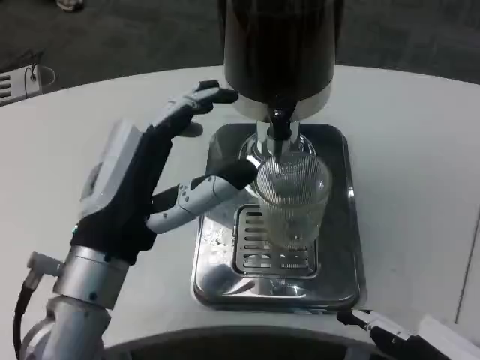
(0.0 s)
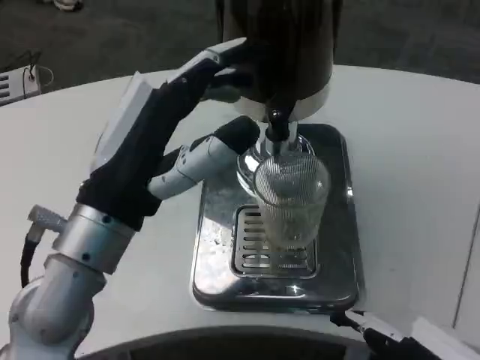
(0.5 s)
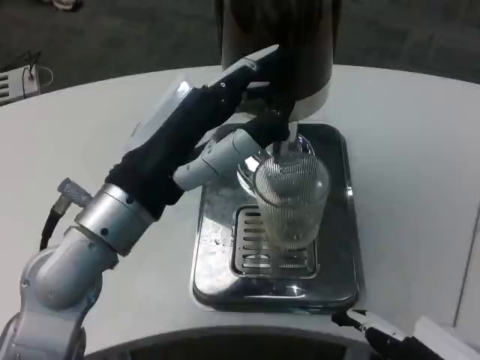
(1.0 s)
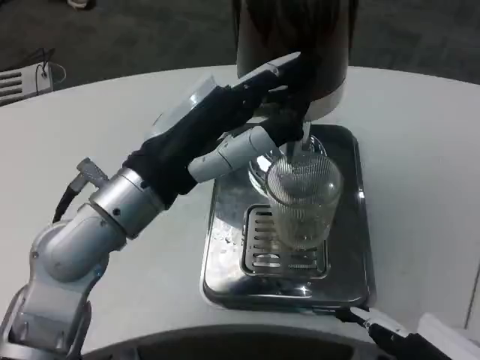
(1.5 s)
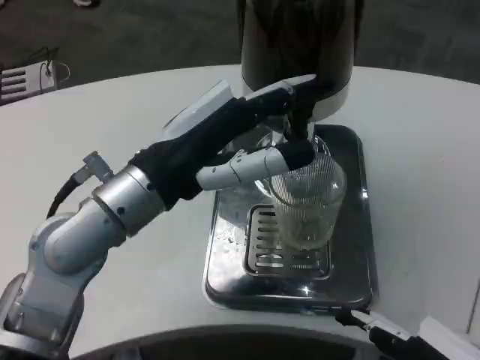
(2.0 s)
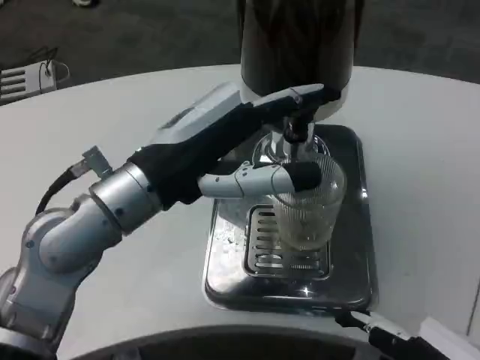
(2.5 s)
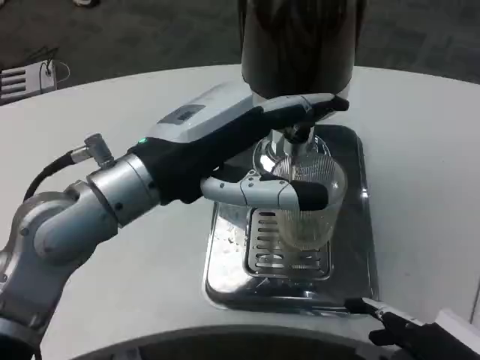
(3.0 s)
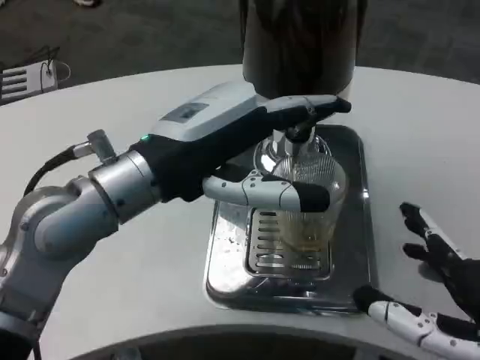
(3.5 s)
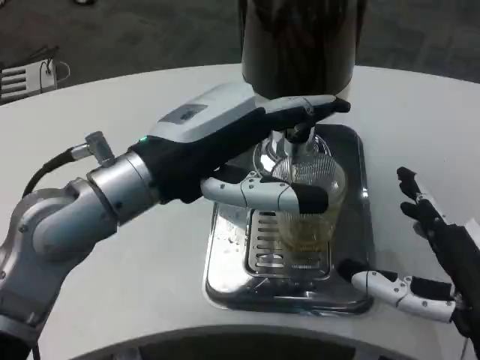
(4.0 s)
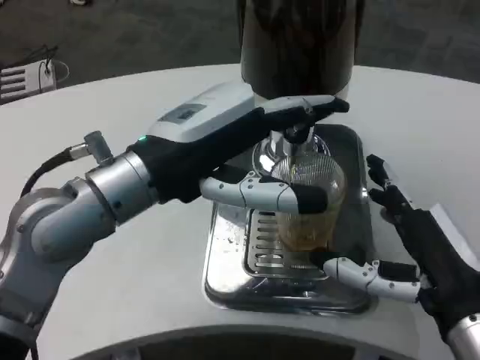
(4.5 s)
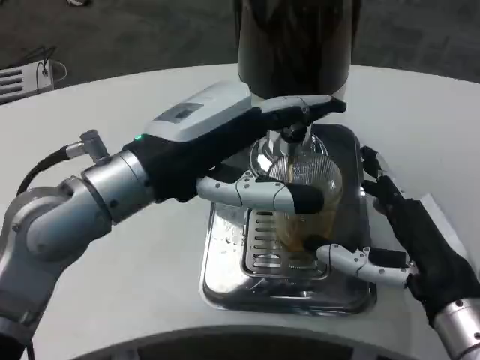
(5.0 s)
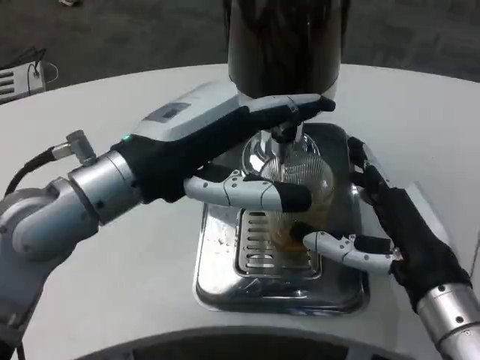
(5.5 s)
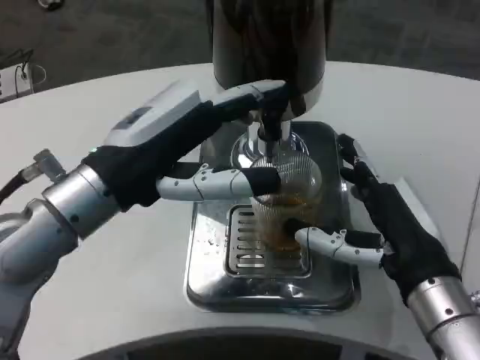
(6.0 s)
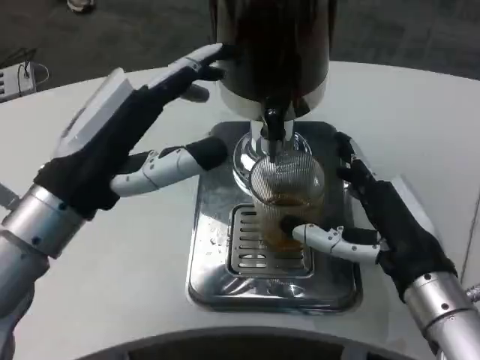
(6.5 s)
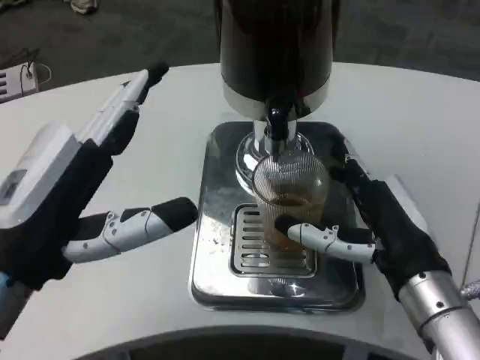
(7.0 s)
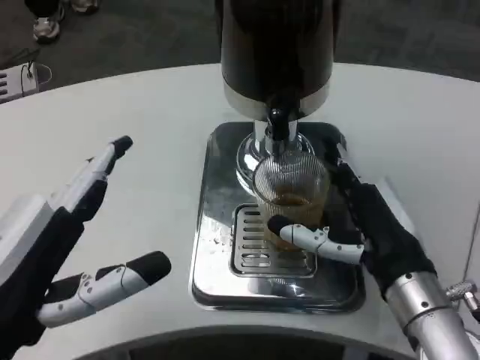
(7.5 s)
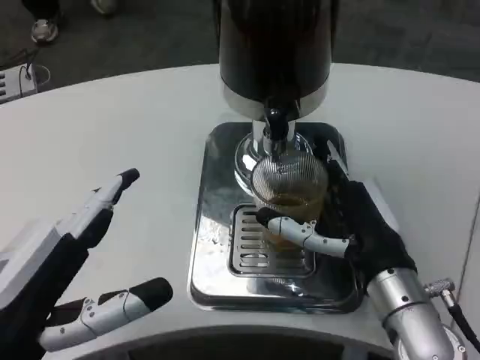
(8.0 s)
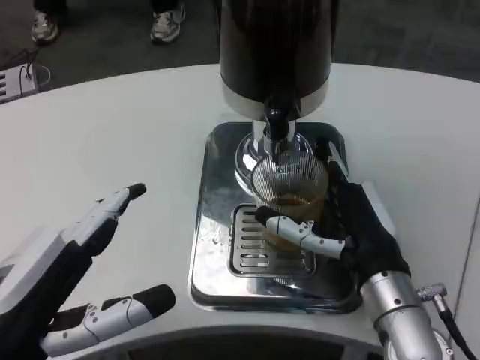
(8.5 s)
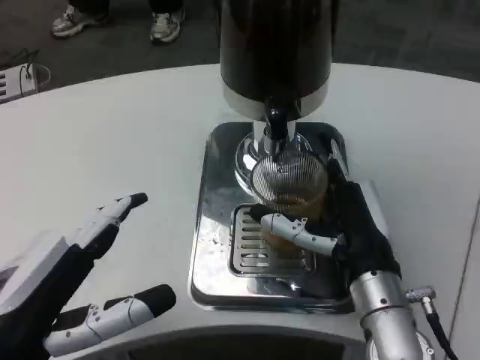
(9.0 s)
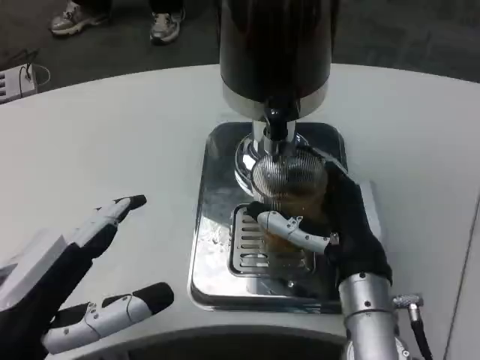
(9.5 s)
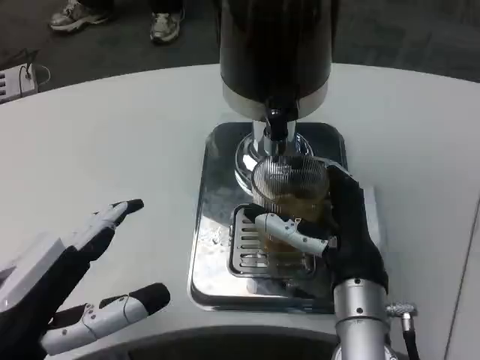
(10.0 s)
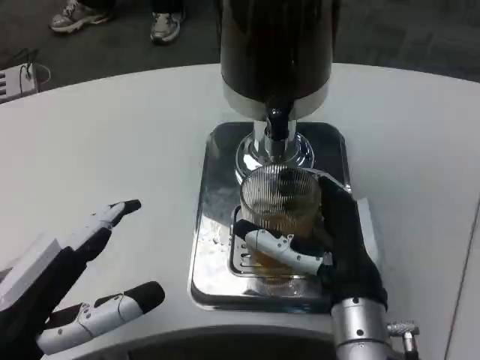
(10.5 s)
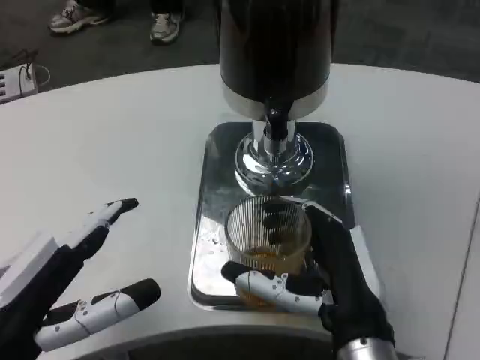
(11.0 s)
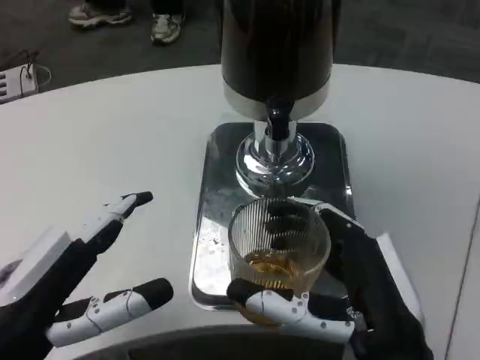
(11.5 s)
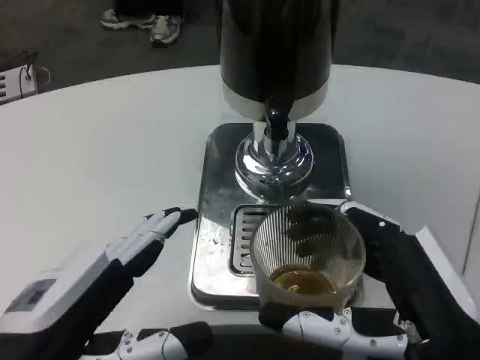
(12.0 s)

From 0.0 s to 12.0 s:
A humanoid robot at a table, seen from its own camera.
Task of the whole recording: Grasp the cup under the faucet to collect the drink, then remove the cup.
From 0.0 s to 2.0 s: The left hand heads upward, covering approximately 5 cm.
From 2.0 s to 4.0 s: The right hand is displaced forward by approximately 5 cm.
From 4.0 s to 6.0 s: The right hand is displaced forward by roughly 5 cm.
From 6.0 s to 8.0 s: The left hand heads backward and downward, covering approximately 15 cm.
From 8.0 s to 10.0 s: The right hand travels to the left by approximately 5 cm.
From 10.0 s to 12.0 s: The right hand shifts about 15 cm backward and to the right.

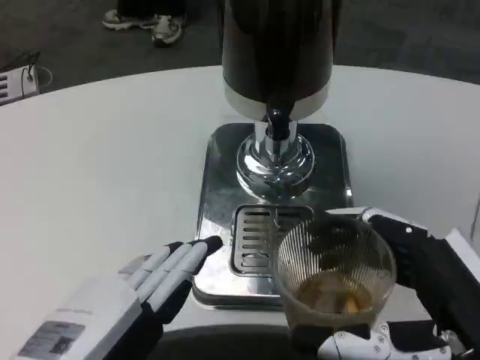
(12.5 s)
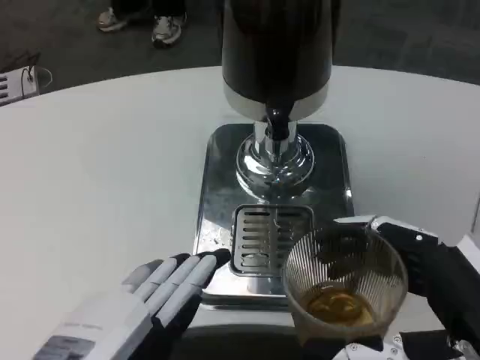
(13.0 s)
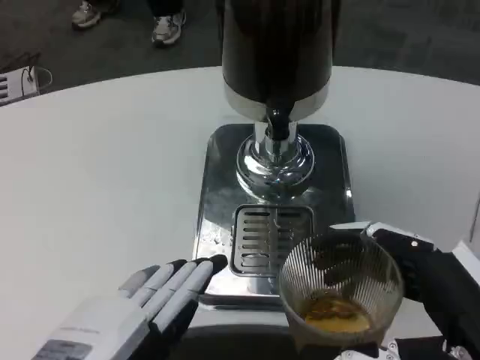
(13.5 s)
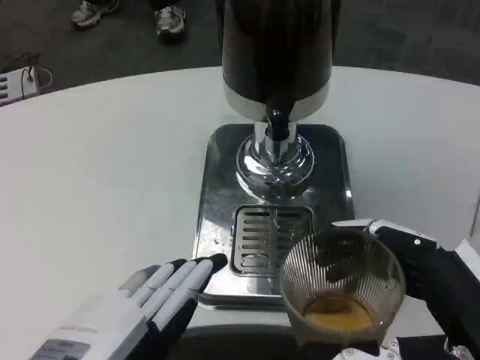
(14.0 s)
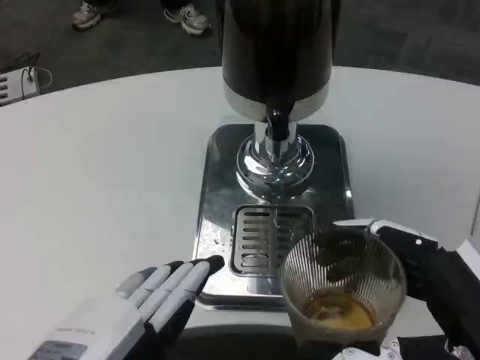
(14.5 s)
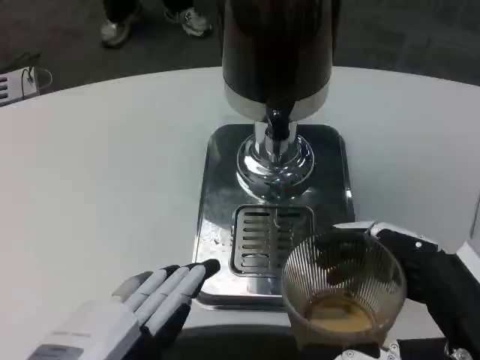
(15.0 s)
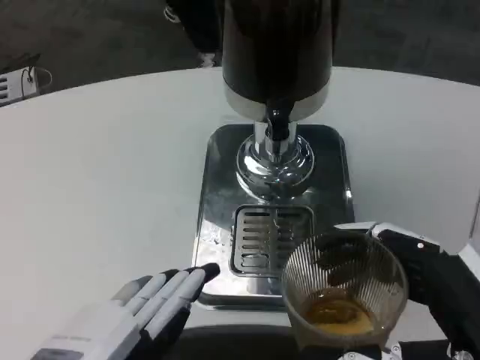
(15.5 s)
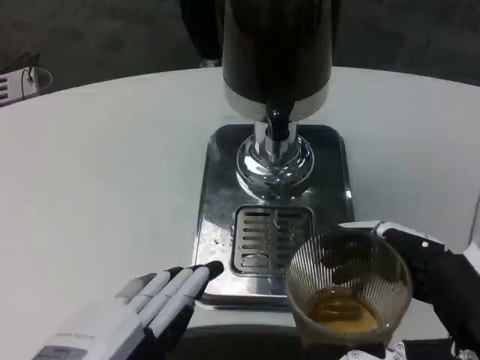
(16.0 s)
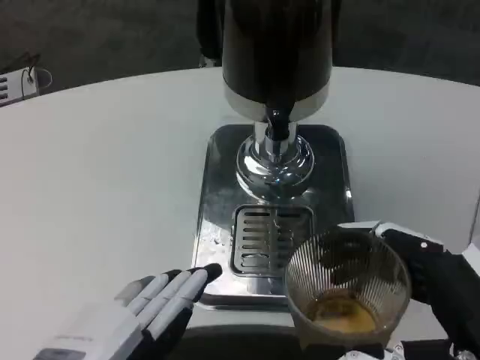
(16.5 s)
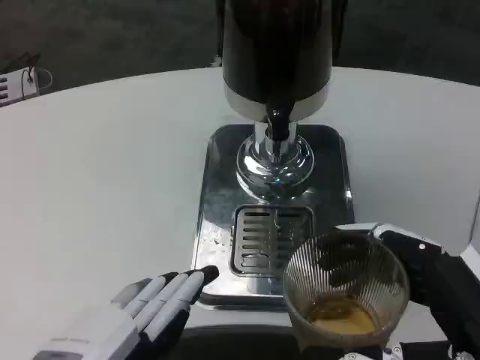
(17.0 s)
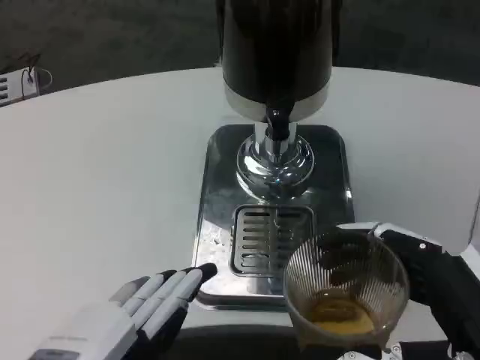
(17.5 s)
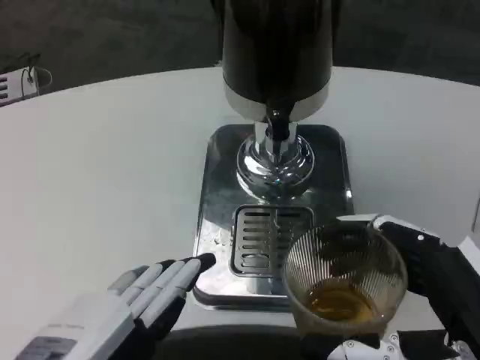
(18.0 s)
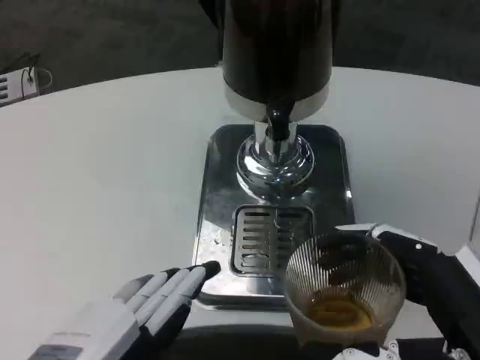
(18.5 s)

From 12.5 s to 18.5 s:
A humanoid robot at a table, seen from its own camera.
Task of the whole recording: Grasp the cup under the faucet to collect the drink, then remove the cup.
From 12.5 s to 14.5 s: There are only small adjustments of the hands.
From 14.5 s to 18.5 s: Both hands stay about where they are.

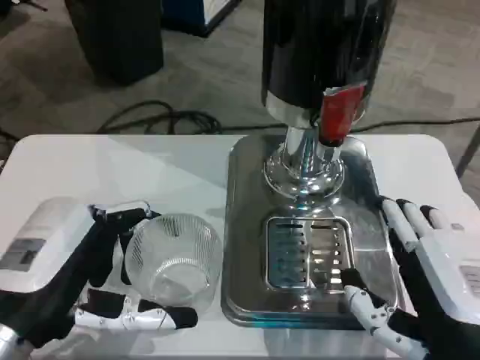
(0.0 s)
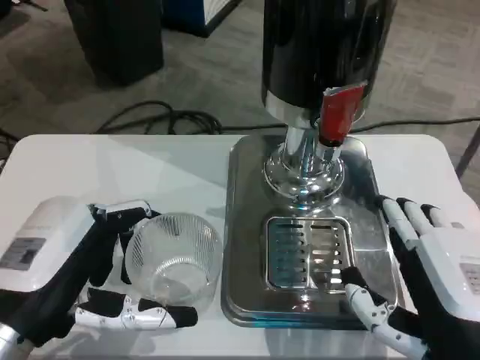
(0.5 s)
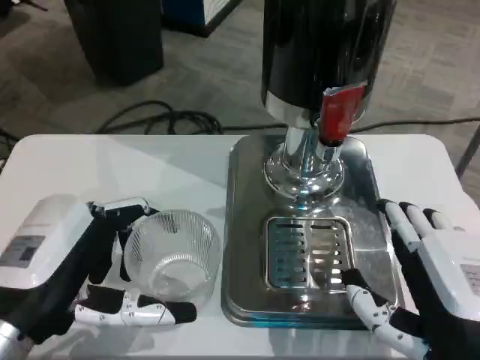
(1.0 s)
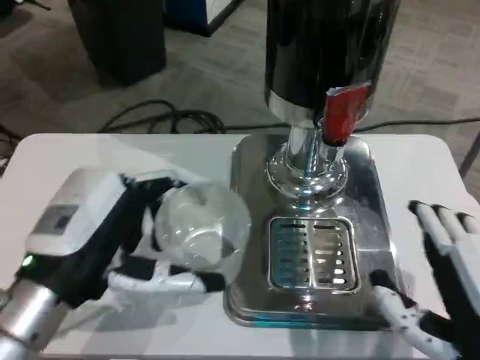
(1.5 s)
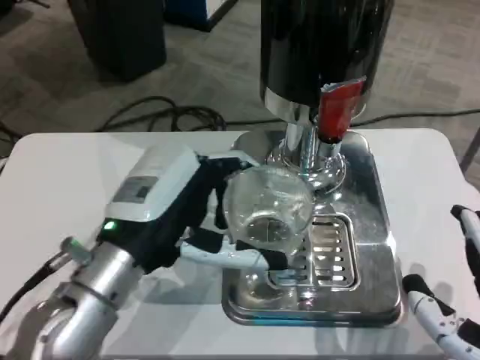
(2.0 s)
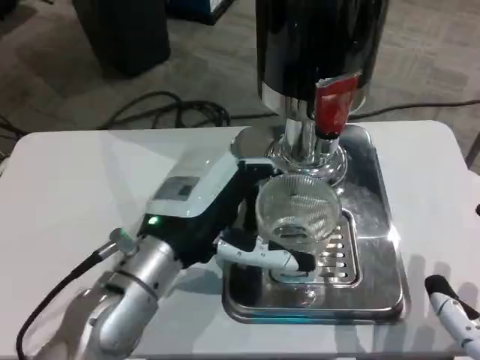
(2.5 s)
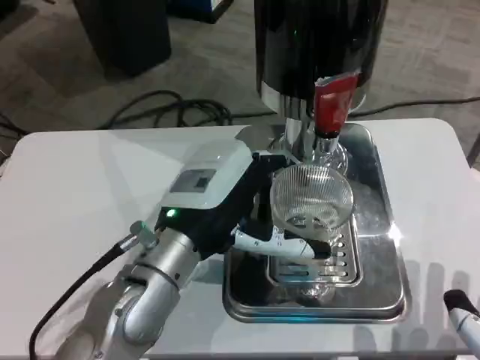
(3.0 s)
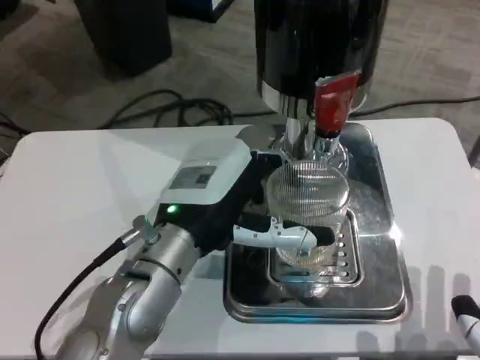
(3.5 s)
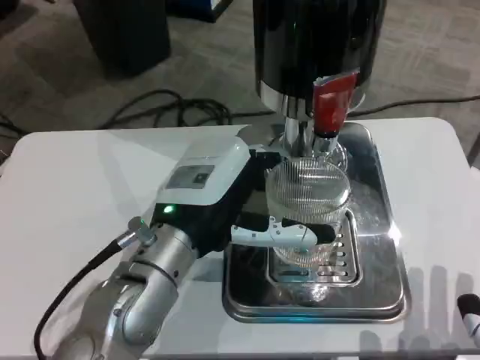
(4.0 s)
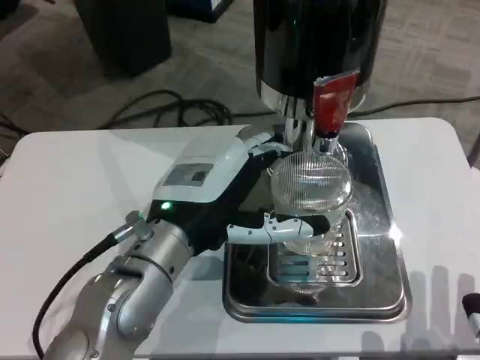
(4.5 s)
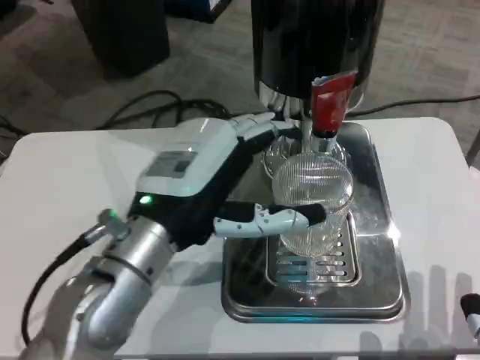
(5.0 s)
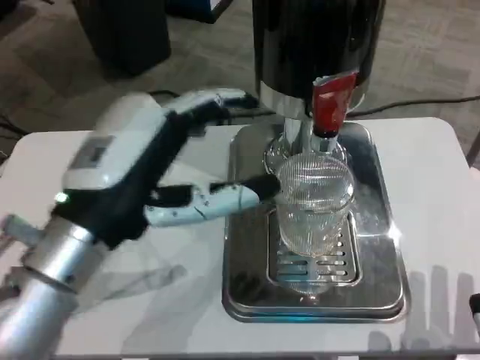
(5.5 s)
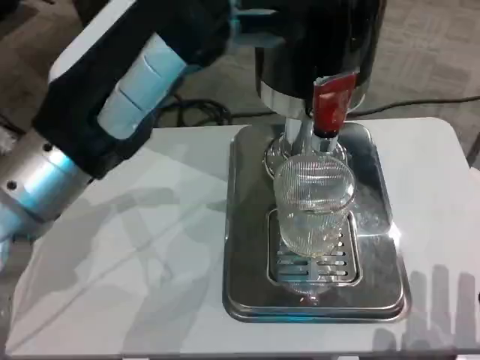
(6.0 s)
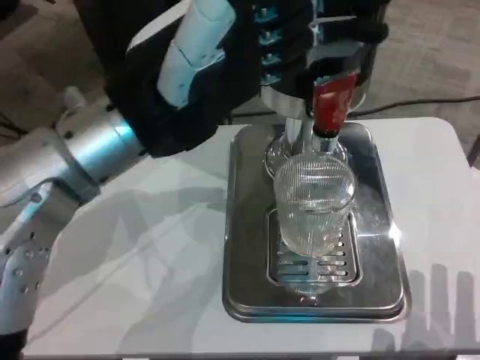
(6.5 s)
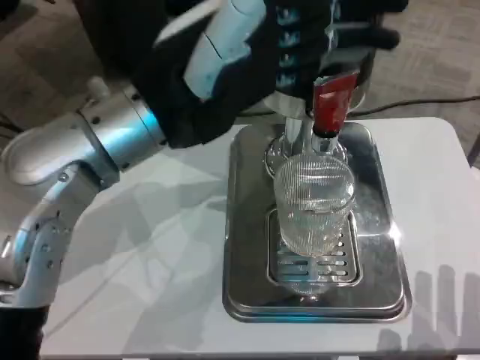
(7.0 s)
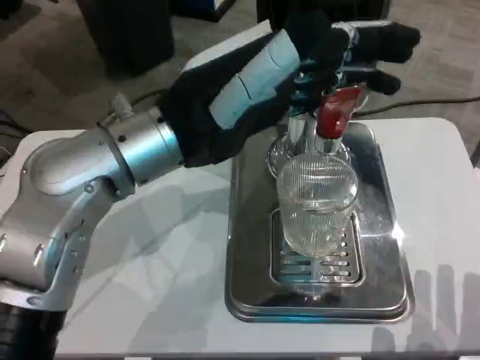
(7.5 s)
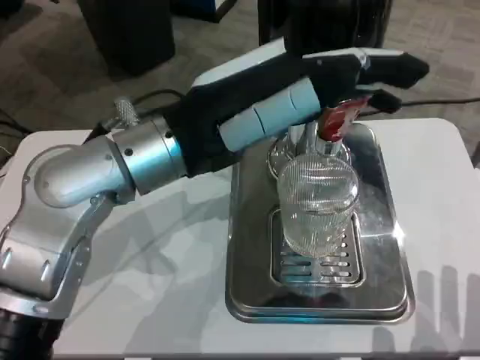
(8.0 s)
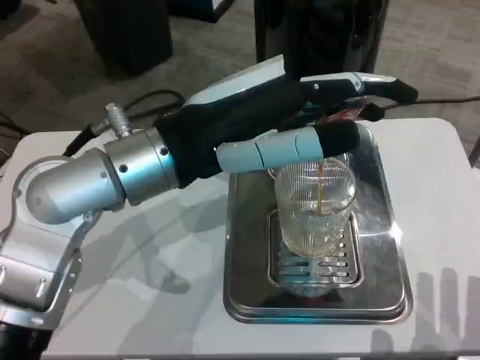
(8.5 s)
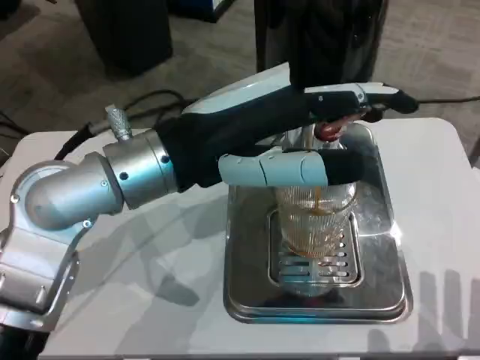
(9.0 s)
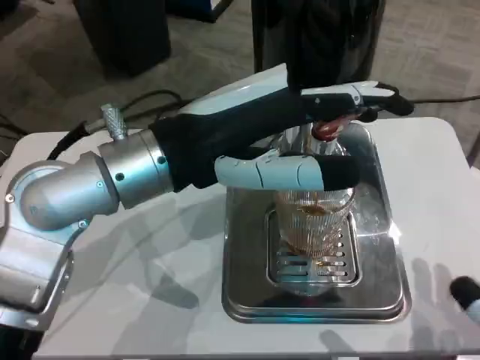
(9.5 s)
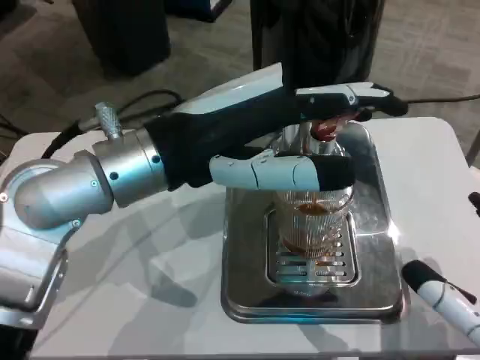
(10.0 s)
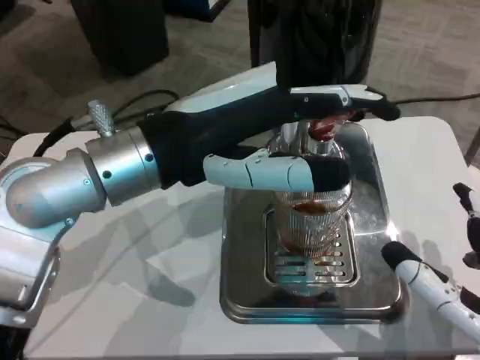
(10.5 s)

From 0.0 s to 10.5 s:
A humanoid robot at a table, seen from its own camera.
Task of the whole recording: Grasp the cup under the faucet to collect the drink, then remove the cup.
From 0.0 s to 2.0 s: The left hand moves to the right and forward, about 10 cm.
From 4.0 s to 6.5 s: The left hand travels upward by roughly 15 cm.
From 8.5 s to 10.5 s: The right hand is displaced forward by approximately 5 cm.
